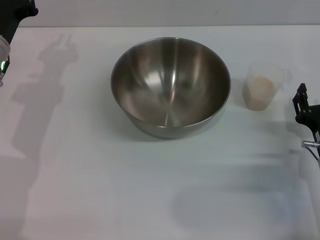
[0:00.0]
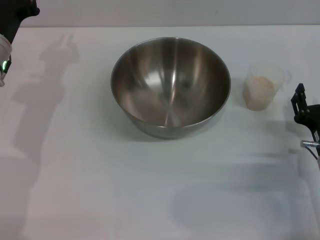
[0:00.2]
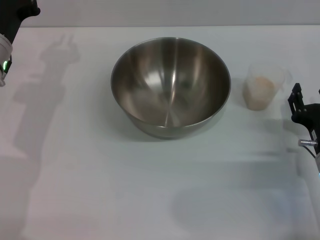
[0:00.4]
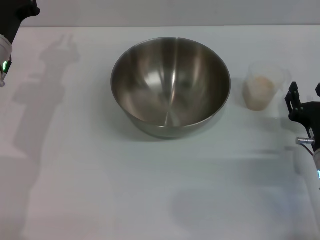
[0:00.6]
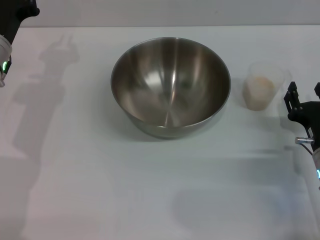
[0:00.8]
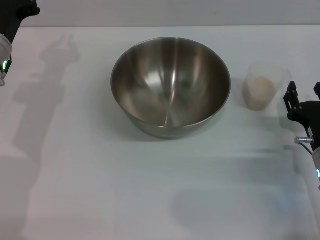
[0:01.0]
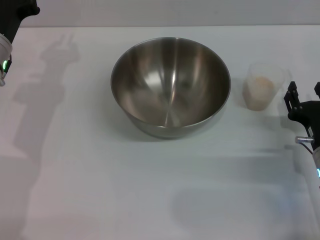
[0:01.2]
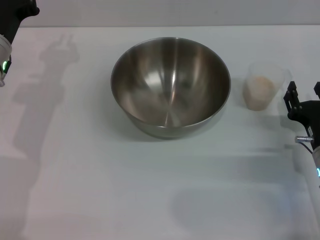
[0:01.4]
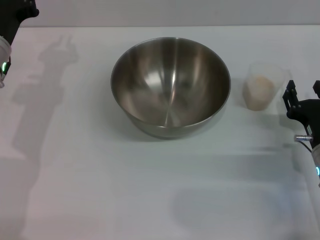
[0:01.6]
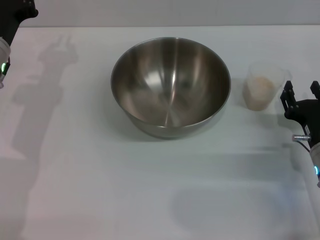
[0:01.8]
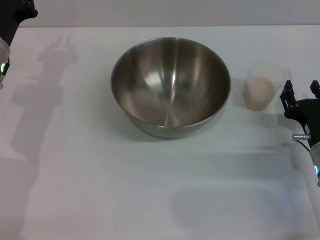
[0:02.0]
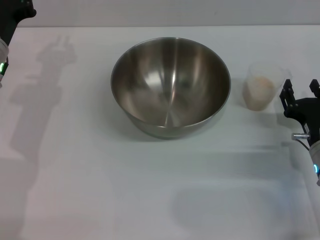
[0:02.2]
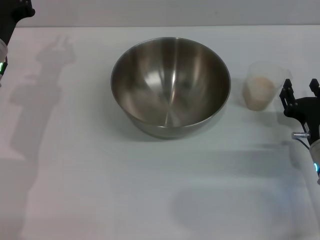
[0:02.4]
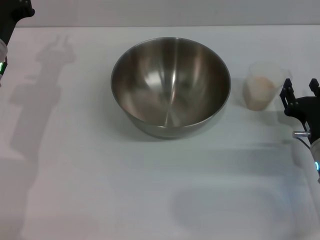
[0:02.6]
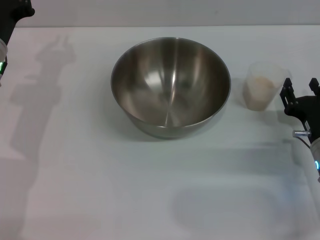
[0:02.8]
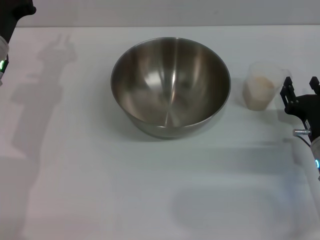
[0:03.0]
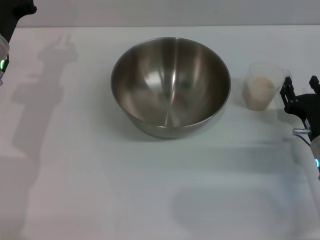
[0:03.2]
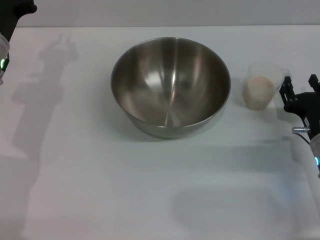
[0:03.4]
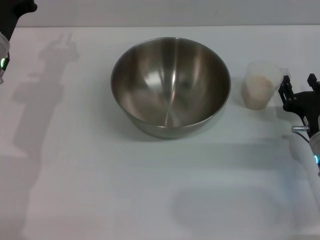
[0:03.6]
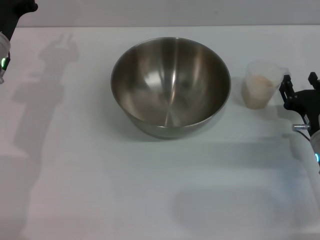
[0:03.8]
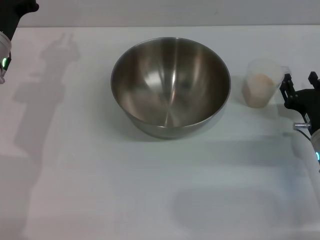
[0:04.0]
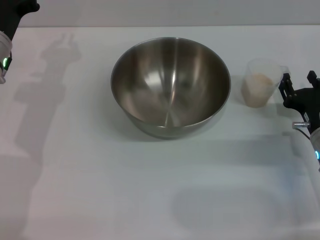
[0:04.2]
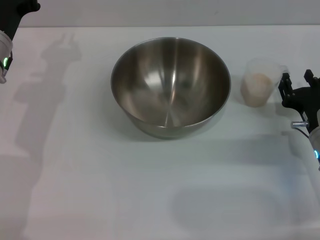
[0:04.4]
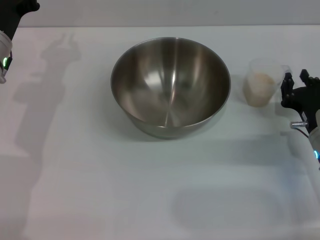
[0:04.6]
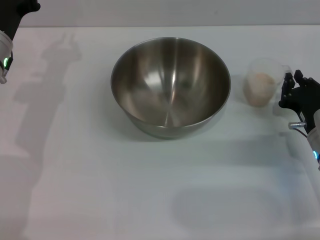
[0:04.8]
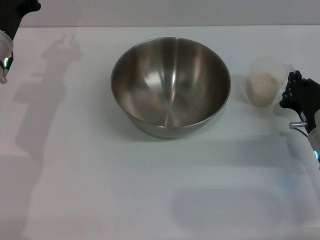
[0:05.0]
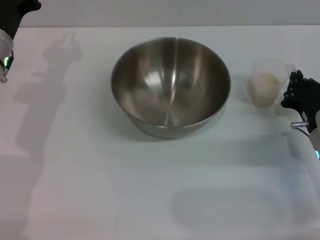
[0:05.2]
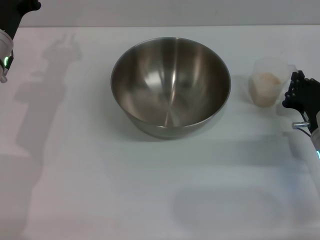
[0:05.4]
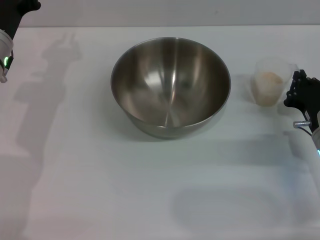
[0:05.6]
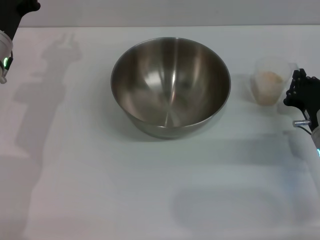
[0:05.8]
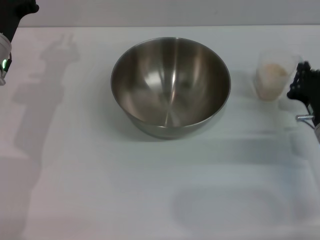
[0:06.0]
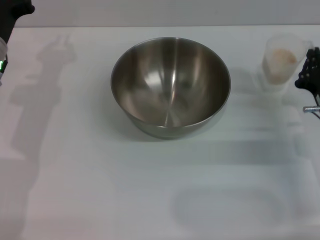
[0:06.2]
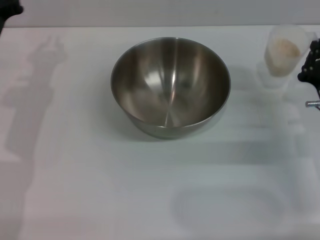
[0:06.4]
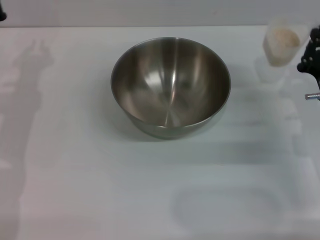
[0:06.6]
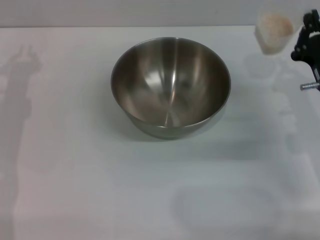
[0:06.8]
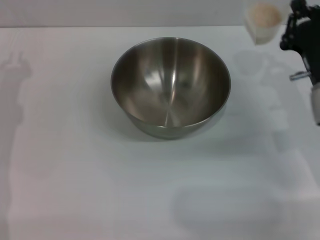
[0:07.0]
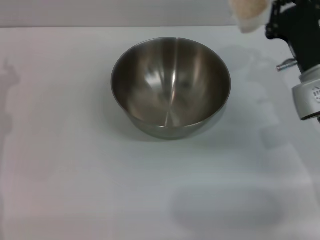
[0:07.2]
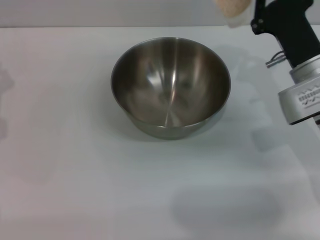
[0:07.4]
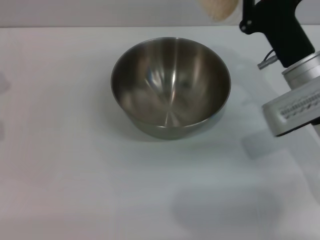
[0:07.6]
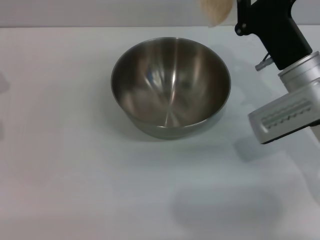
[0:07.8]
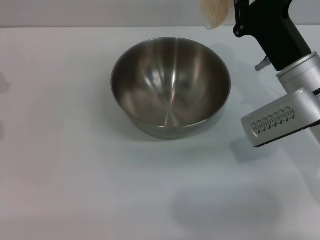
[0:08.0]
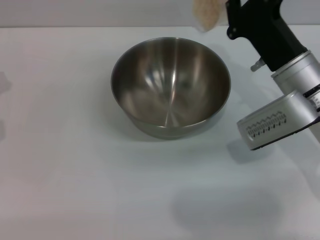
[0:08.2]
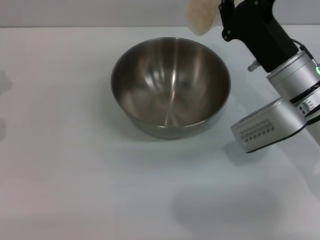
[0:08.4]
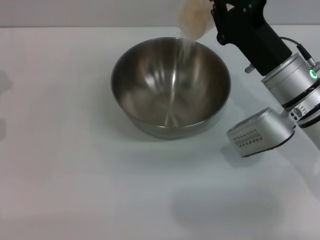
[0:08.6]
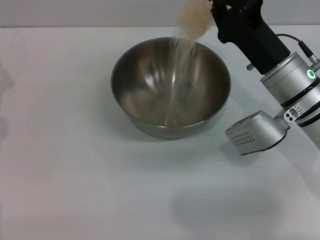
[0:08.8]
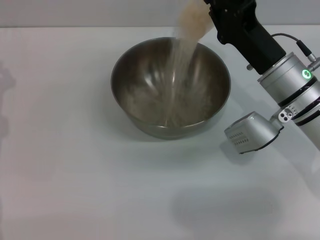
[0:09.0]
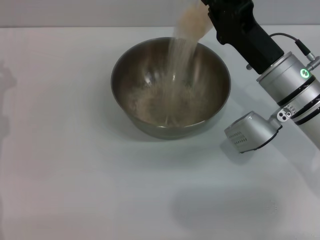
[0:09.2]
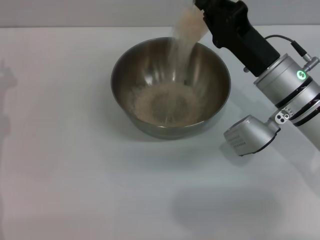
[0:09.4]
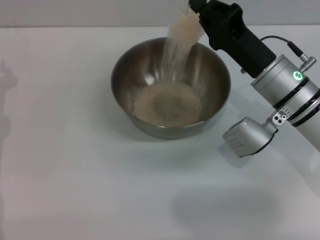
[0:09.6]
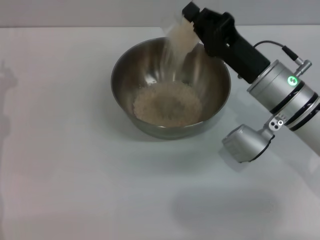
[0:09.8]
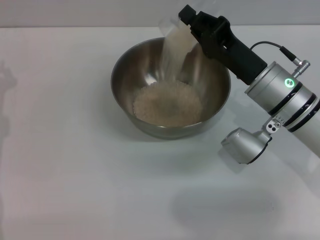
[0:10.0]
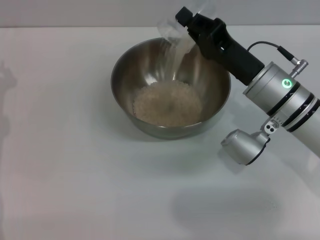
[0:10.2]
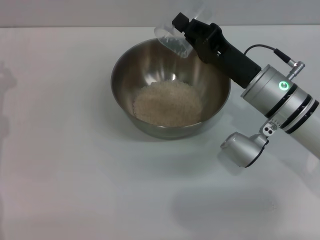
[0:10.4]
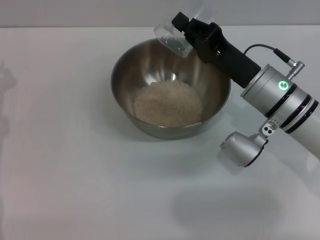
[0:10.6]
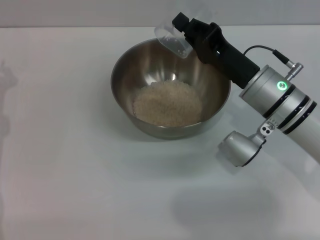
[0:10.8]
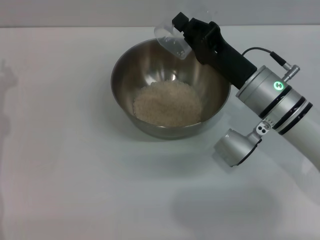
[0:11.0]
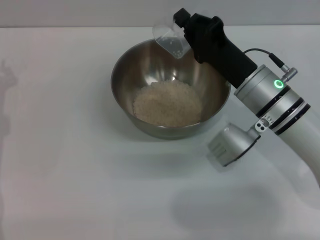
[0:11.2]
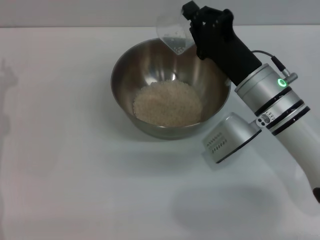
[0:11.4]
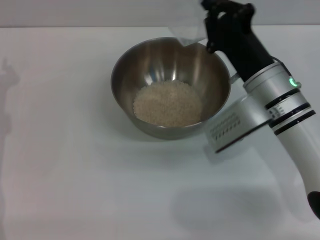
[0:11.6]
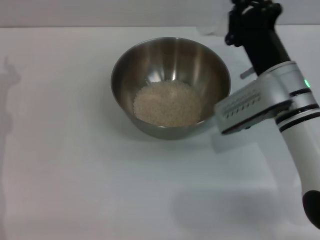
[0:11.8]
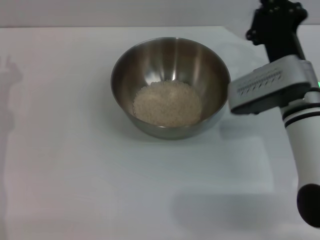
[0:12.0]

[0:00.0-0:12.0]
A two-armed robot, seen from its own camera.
Task of the whole recording: Place the bowl in the middle of the table with one hand and pour the rice from the grain cup into it with the other hand.
Step, 0:00.0 to 0:06.0: Pick up the cup with rice in it with the right gripper.
Step, 0:06.4 to 0:11.0: Pour the rice from the cup into the bowl with the right gripper.
0:00.0 to 0:01.6: The grippers move only a little.
0:01.6 to 0:03.0: Both grippers stay put.
0:03.0 to 0:04.4: The grippers stay close to where they were, moving slightly.
0:04.4 to 0:06.0: The right gripper closes its fingers.
0:06.0 to 0:07.6: The left gripper moves to the left and backward, approximately 10 cm; the right gripper travels upward and to the left by roughly 10 cm.
0:09.0 to 0:10.4: There are only small adjustments of the grippers.

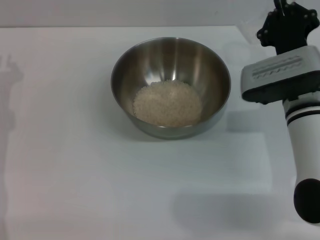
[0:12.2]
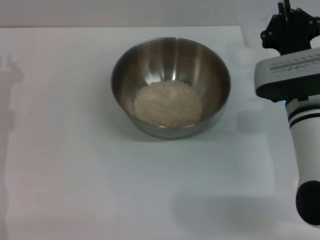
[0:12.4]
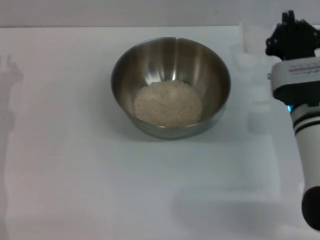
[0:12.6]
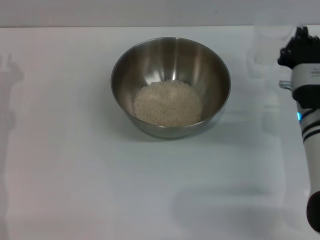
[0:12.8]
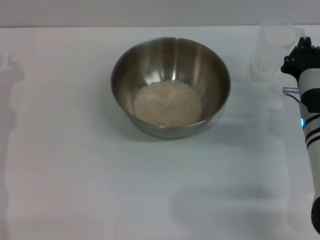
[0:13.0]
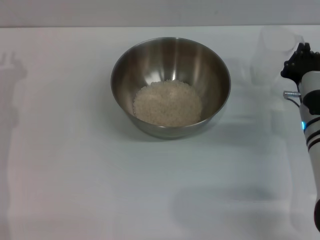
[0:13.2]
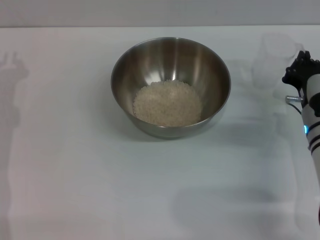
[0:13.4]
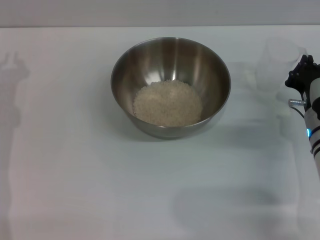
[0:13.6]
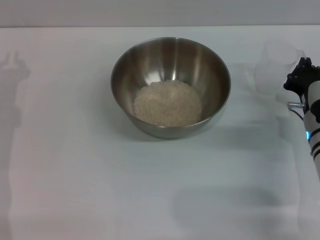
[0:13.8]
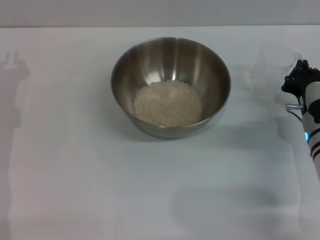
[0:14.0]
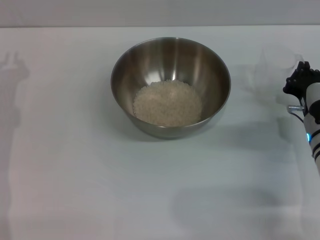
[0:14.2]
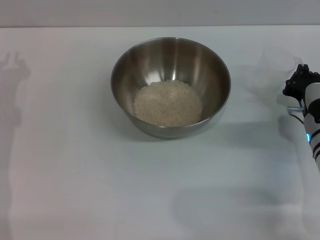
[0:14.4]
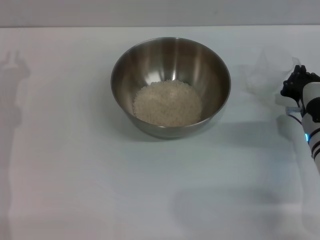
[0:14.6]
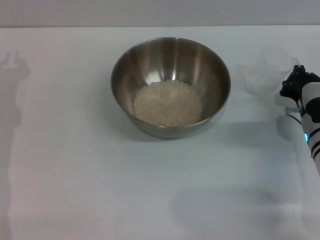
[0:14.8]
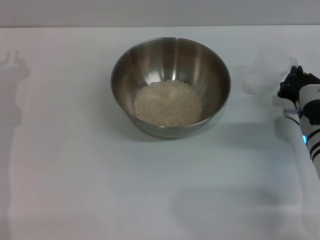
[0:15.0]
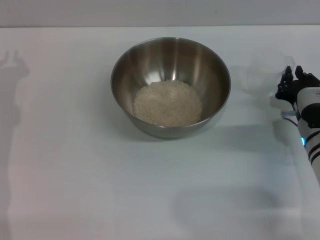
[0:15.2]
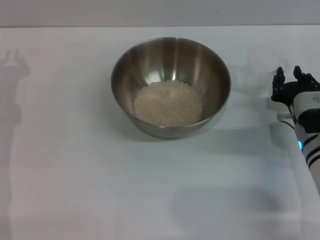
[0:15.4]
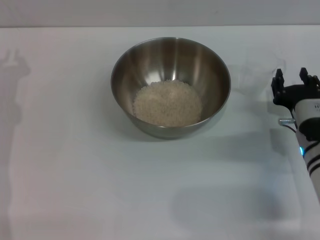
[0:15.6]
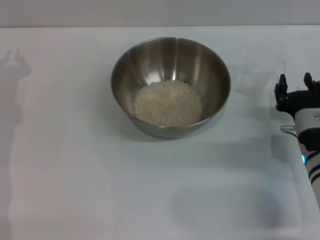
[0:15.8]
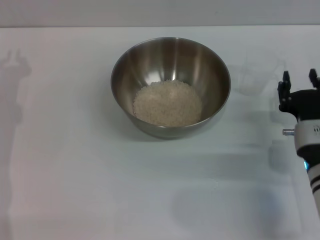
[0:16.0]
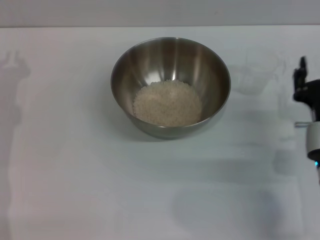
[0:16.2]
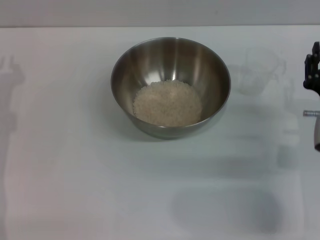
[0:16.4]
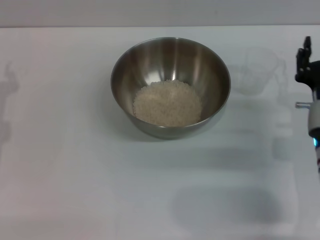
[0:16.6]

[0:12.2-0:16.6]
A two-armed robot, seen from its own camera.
Task of the whole recording: Place the bowl in the middle of the table with one hand and pour the rice from the grain cup into it with the other hand.
Step, 0:12.2 to 0:15.8: Place the cup on the table with the right gripper.
0:12.2 to 0:13.6: The right gripper heads downward and to the right, covering some 10 cm.
0:13.6 to 0:15.2: The grippers make only small movements.
0:15.2 to 0:16.6: The right gripper opens up.
